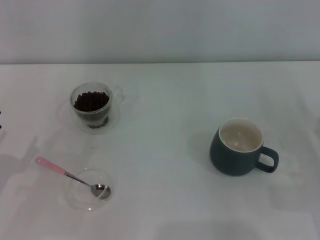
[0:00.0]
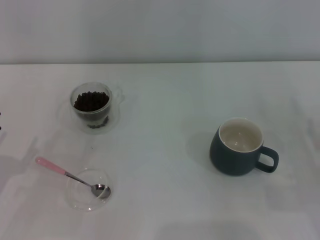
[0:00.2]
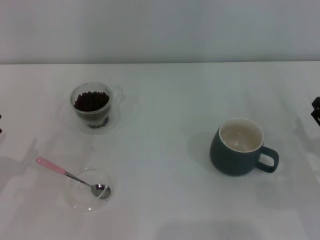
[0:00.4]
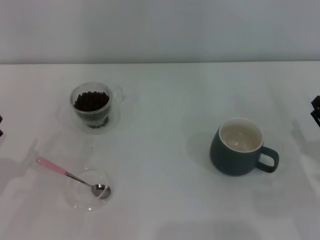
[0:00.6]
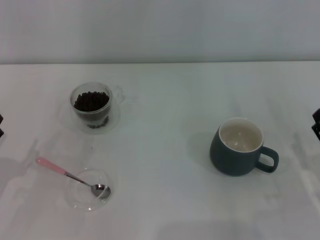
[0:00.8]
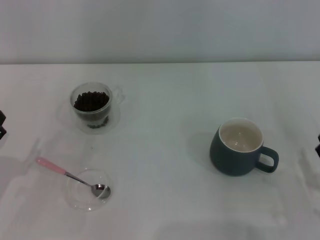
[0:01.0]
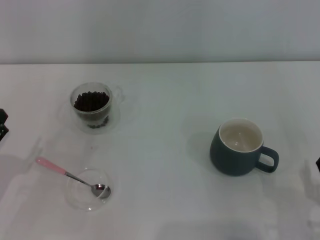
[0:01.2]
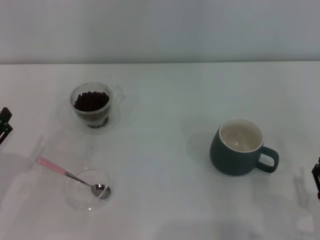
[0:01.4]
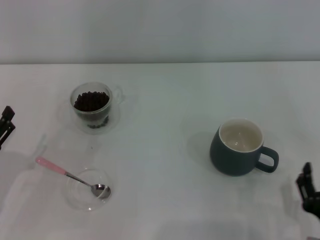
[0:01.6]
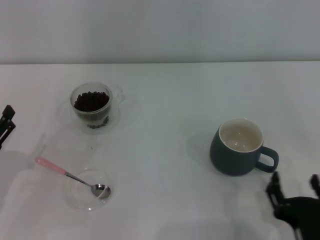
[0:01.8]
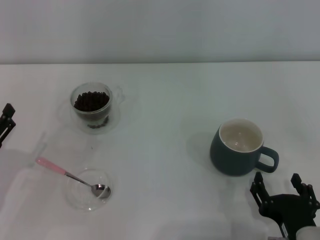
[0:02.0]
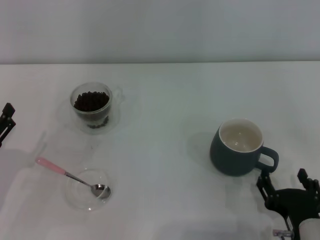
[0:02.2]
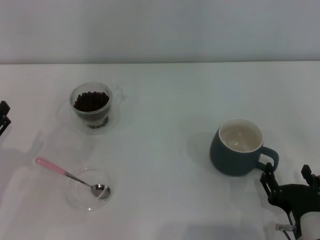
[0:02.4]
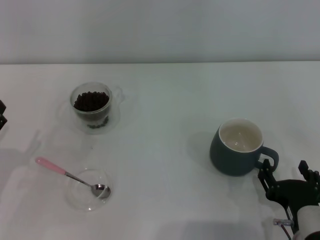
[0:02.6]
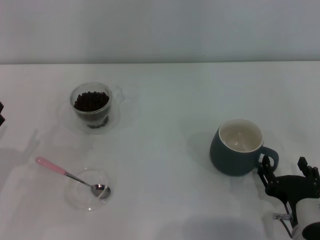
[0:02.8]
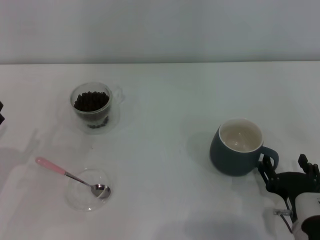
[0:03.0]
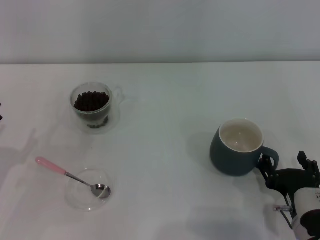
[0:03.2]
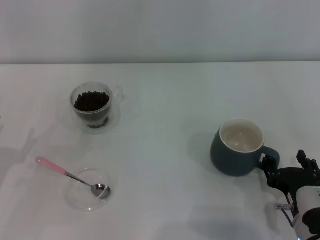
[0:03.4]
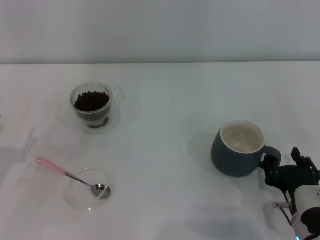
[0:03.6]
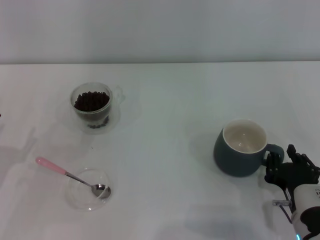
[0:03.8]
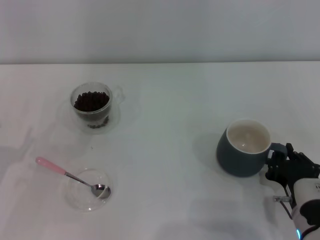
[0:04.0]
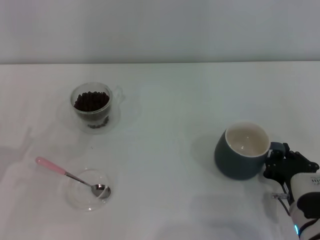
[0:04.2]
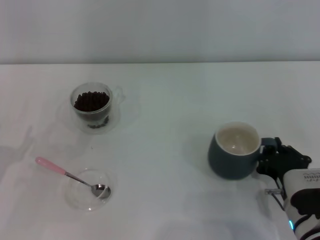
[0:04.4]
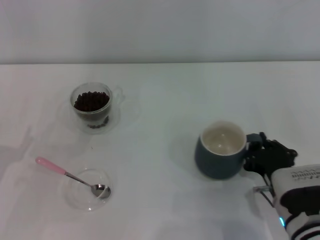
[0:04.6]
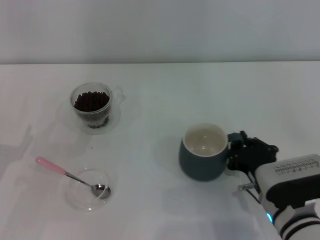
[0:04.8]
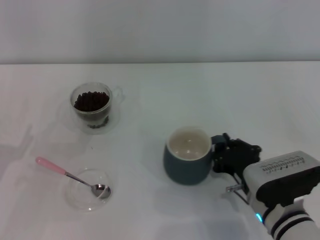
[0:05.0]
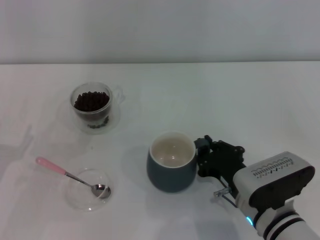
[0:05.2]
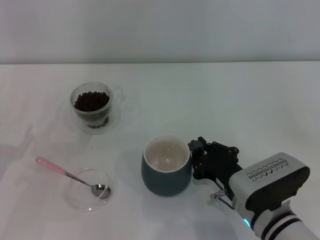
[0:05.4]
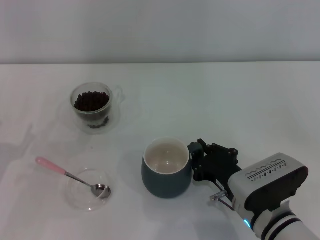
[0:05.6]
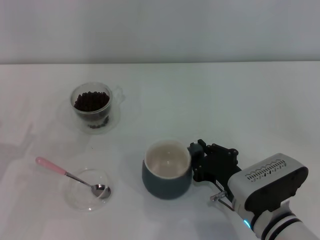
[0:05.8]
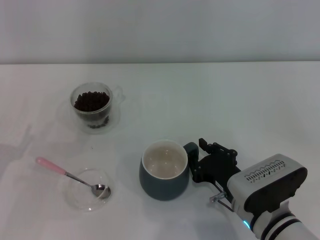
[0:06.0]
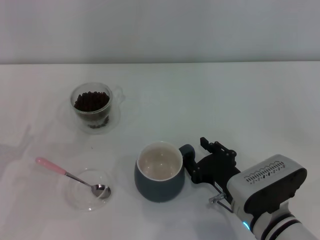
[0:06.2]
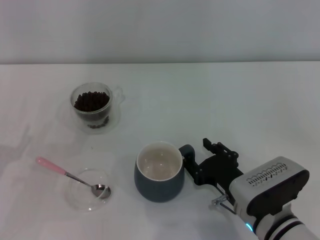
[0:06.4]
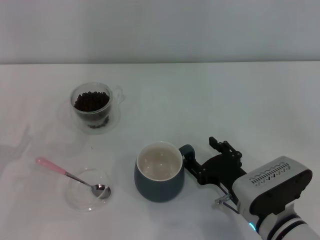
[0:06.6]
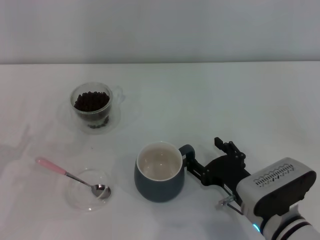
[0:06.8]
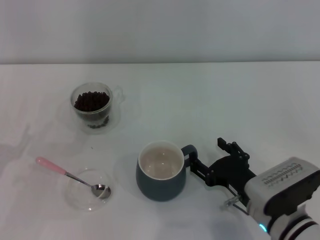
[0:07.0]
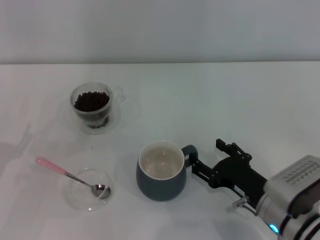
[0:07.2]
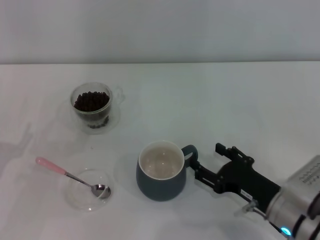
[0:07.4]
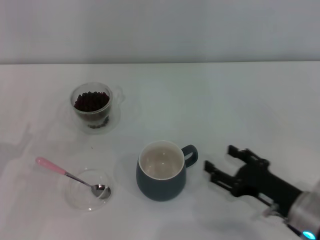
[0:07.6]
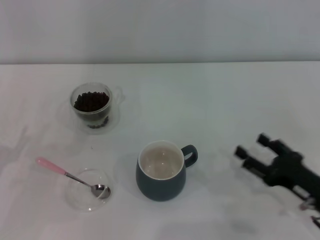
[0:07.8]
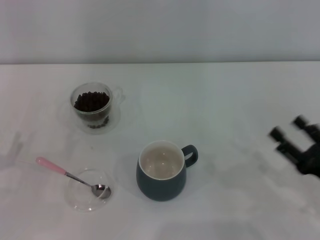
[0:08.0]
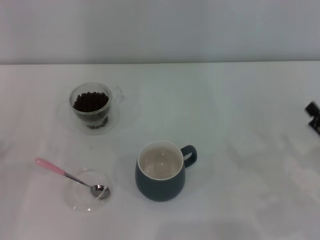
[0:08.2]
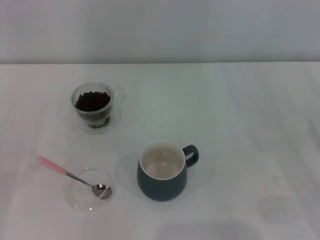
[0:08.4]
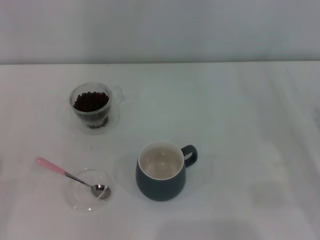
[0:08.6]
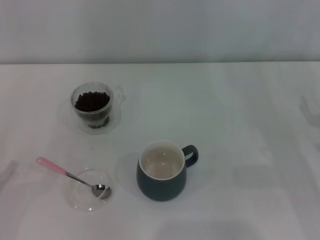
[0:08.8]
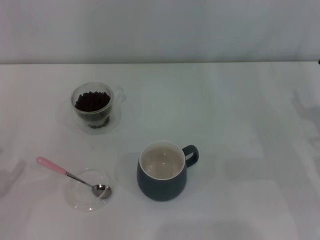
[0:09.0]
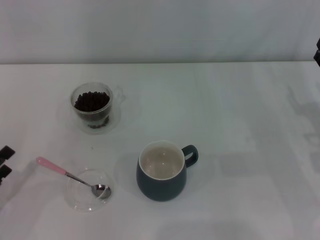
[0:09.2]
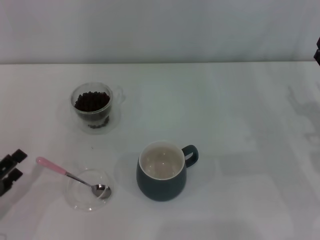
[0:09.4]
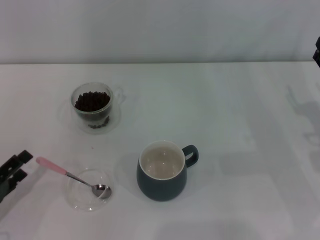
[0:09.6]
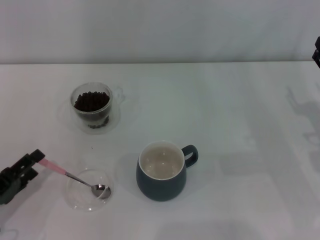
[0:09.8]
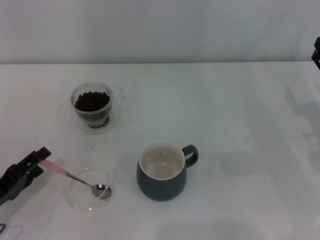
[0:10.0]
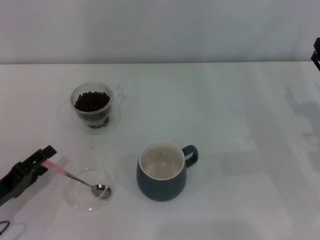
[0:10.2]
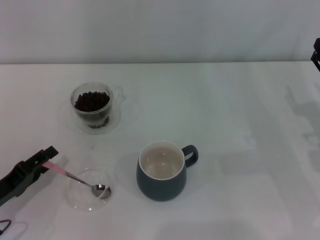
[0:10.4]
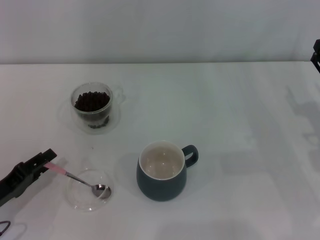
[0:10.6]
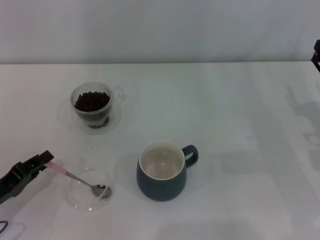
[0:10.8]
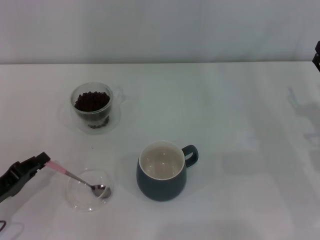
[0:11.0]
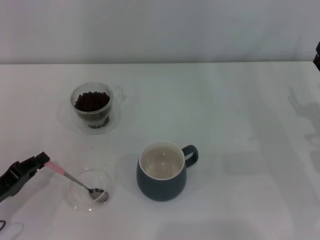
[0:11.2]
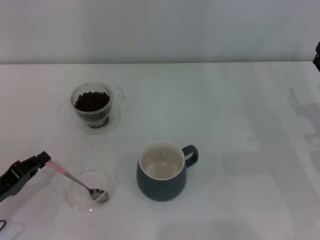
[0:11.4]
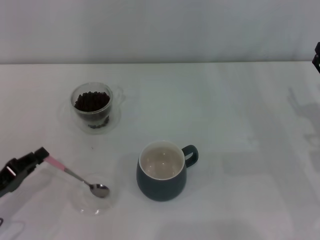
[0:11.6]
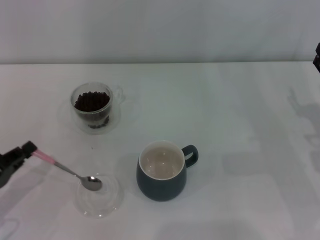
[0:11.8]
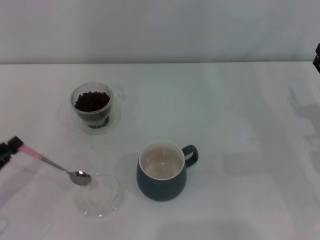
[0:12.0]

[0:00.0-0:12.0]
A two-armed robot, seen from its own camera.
Task of the whole recording: Use a pink spoon to take out the coffee beans from the glass and pour them into the gray cup.
0:00.0 to 0:01.6: The right gripper shifts roughly 20 cm to the left and backward.
0:01.6 to 0:03.0: The right gripper is displaced forward by approximately 5 cm.
0:03.0 to 0:04.4: The right gripper closes up.
0:04.4 to 0:06.0: The right gripper travels to the left by roughly 5 cm.
0:06.0 to 0:07.6: The right gripper heads to the right, covering some 10 cm, and opens up.
0:07.6 to 0:09.0: The left gripper travels backward by some 5 cm, while the right gripper goes roughly 15 cm to the right and forward.
0:09.0 to 0:10.4: The left gripper heads to the right, covering about 5 cm.
0:10.4 to 0:12.0: The left gripper closes up.

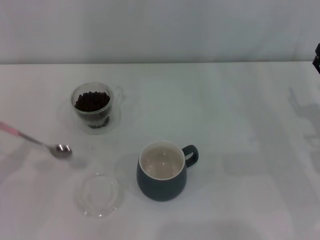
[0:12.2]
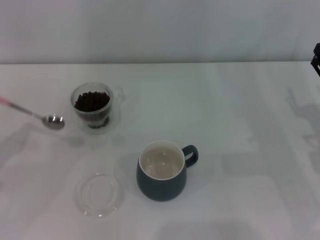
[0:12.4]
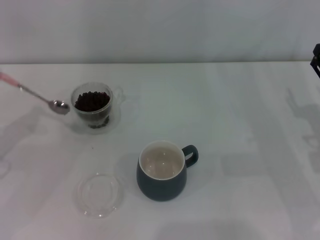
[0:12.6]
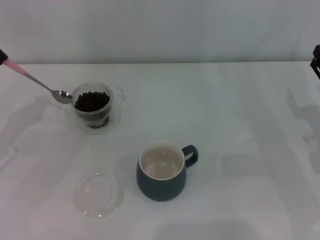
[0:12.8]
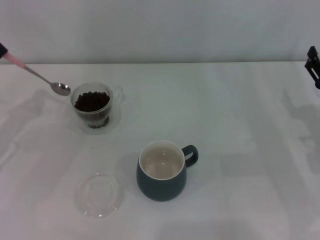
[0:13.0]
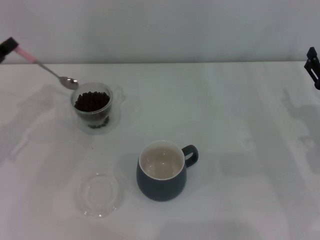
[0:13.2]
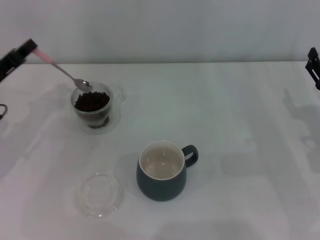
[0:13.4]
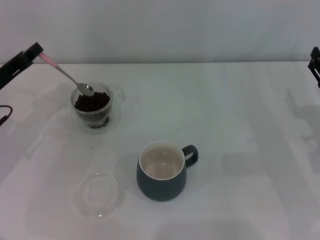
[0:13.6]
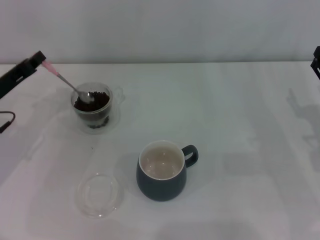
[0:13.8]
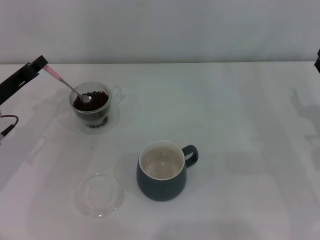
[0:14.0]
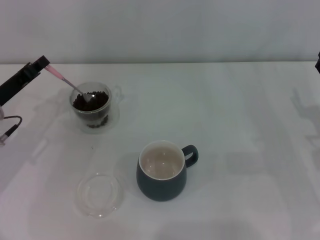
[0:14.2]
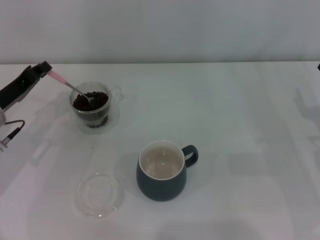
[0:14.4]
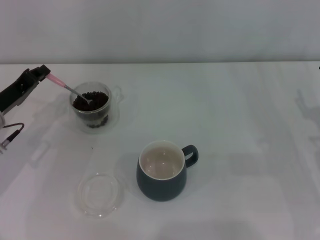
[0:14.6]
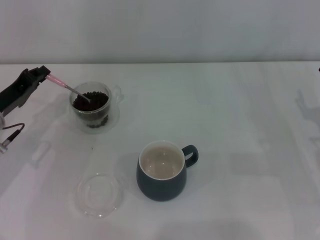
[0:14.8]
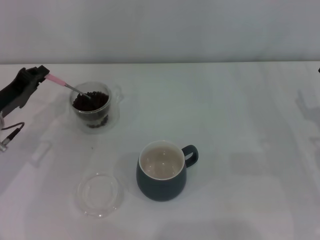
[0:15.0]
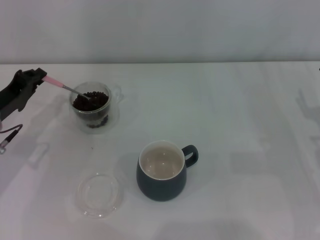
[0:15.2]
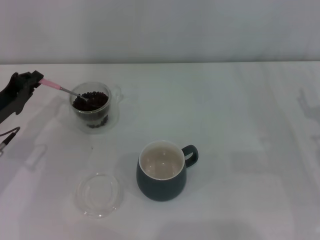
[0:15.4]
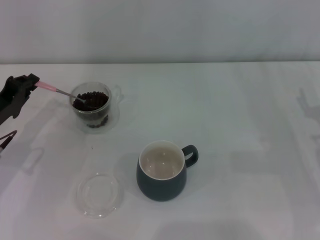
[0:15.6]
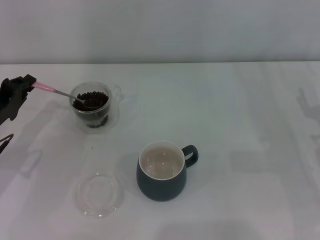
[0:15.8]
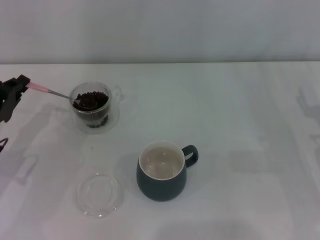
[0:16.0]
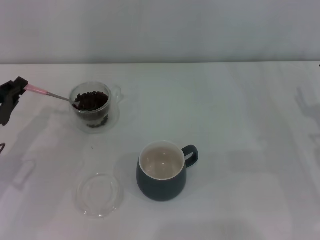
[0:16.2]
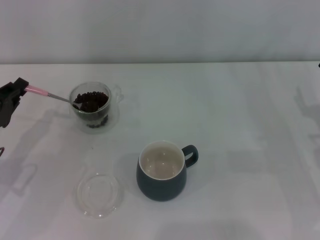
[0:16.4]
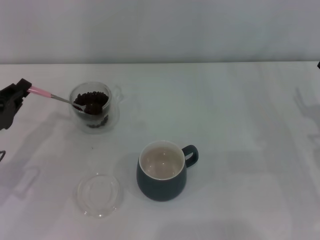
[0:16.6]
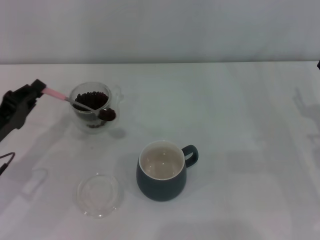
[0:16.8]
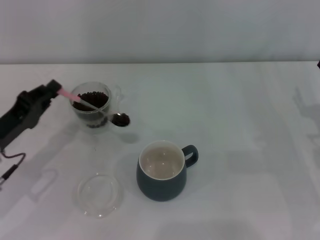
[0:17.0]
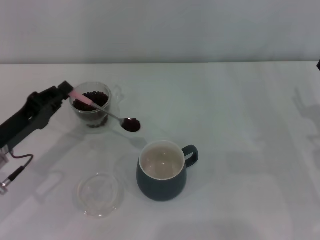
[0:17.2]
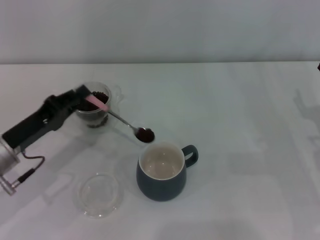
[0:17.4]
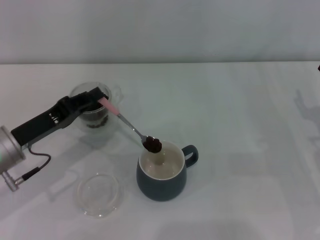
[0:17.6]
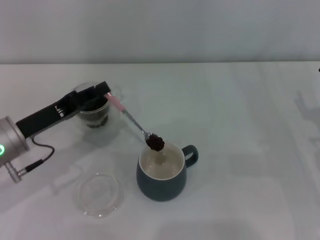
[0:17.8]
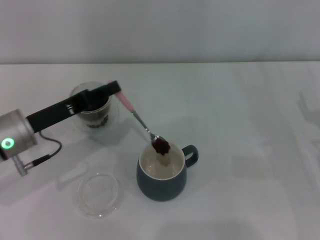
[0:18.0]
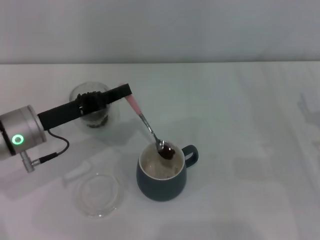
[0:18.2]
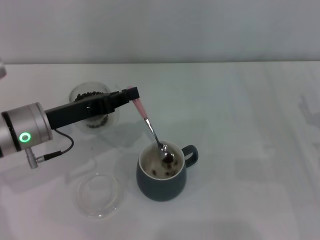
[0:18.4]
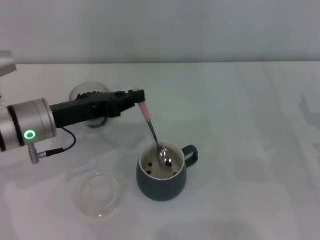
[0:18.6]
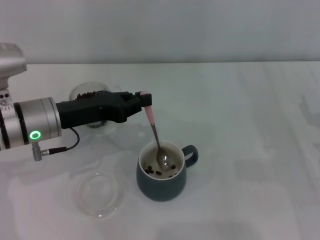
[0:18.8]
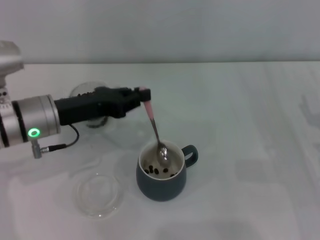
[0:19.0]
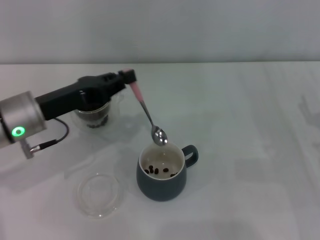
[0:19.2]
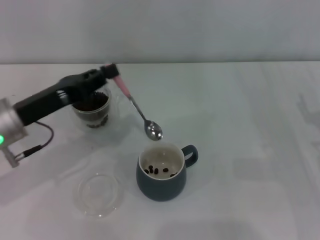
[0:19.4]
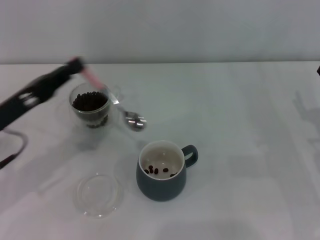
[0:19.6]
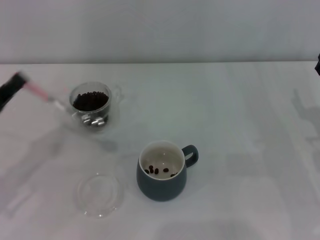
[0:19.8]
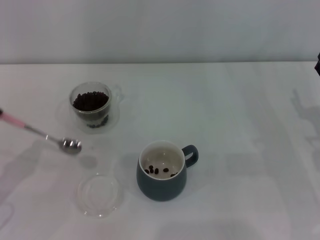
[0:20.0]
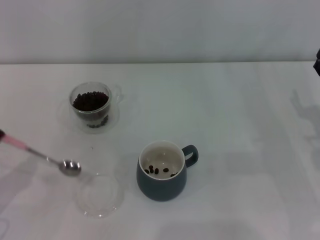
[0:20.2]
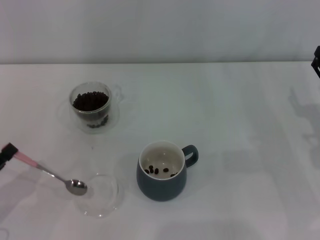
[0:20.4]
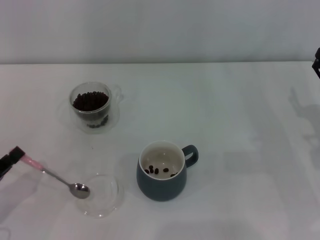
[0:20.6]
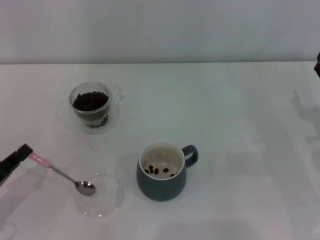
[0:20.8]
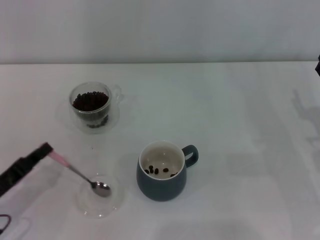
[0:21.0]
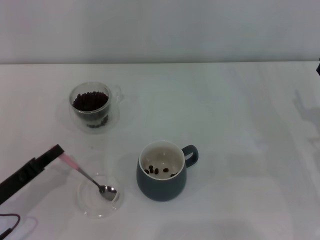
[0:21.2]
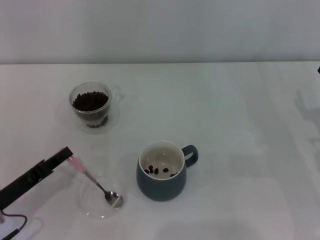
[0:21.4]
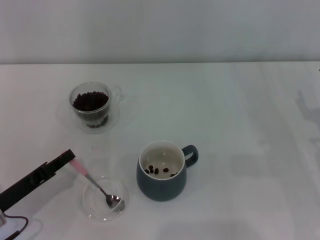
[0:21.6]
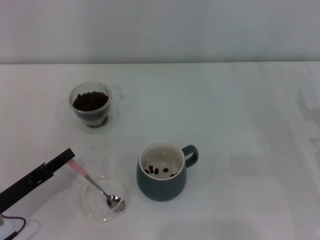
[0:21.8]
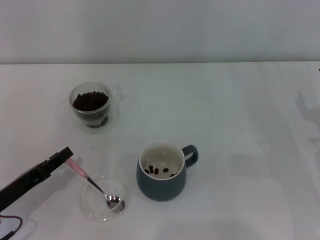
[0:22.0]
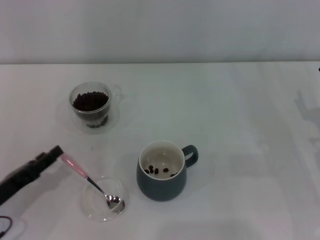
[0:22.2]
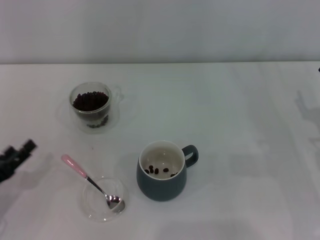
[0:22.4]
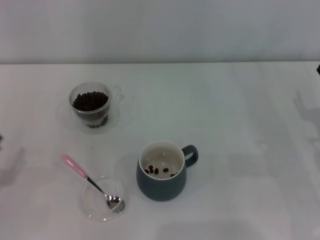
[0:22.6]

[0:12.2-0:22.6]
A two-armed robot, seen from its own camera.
Task of the whole recording: Use a pink spoon to take out the coffee beans from the glass and pour them into the gray cup.
0:12.2 to 0:13.6: The left gripper heads forward and to the right, covering some 15 cm.
0:15.2 to 0:16.6: The left gripper shifts roughly 5 cm backward.
0:16.6 to 0:18.2: The left gripper heads to the right, covering approximately 10 cm.
0:18.2 to 0:19.6: The left gripper shifts by some 5 cm.
0:19.6 to 0:21.2: The left gripper goes about 10 cm downward and backward.
0:21.2 to 0:22.6: The left gripper shifts roughly 5 cm to the left, and opens its fingers.
